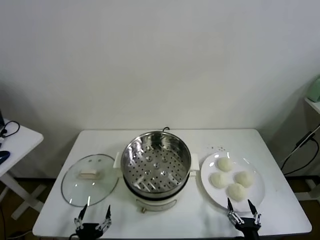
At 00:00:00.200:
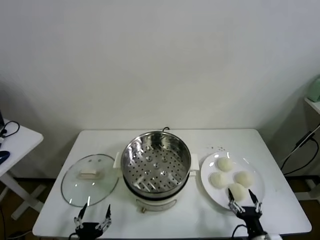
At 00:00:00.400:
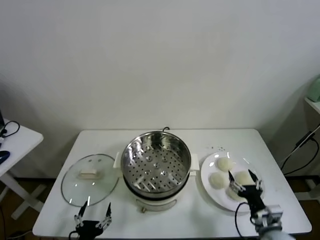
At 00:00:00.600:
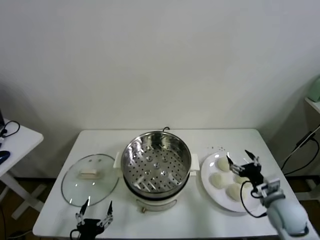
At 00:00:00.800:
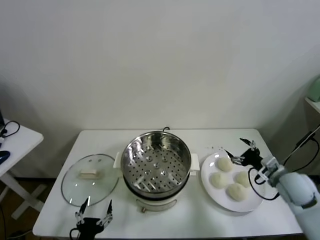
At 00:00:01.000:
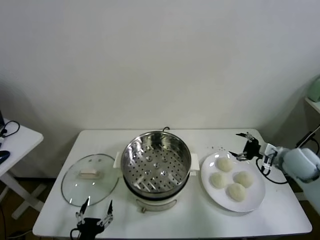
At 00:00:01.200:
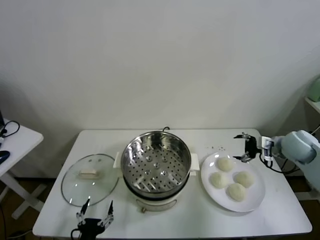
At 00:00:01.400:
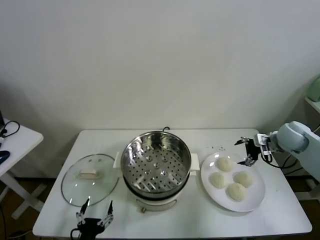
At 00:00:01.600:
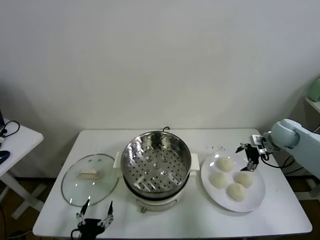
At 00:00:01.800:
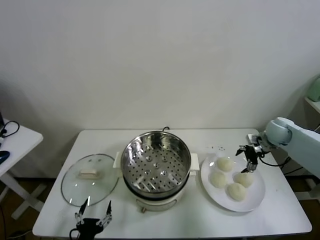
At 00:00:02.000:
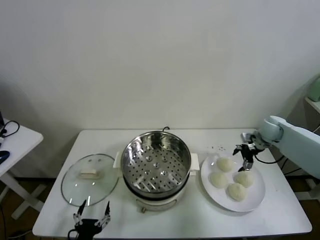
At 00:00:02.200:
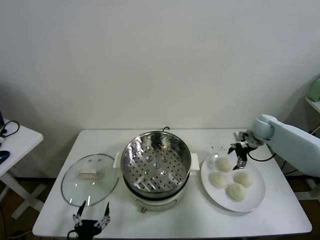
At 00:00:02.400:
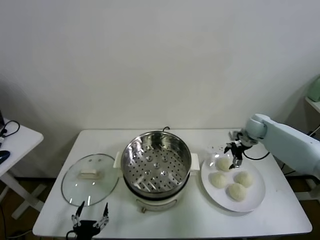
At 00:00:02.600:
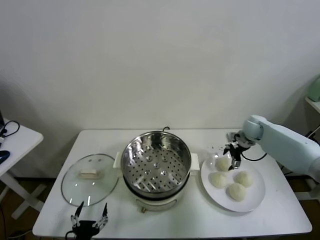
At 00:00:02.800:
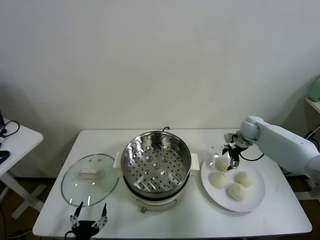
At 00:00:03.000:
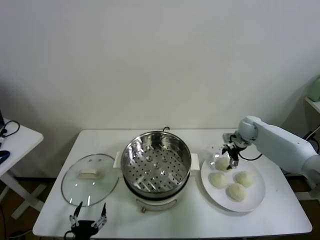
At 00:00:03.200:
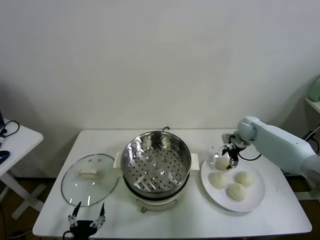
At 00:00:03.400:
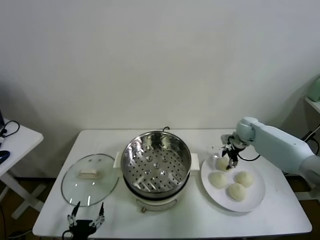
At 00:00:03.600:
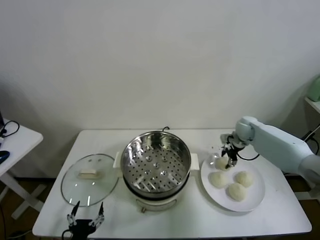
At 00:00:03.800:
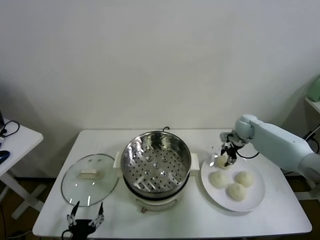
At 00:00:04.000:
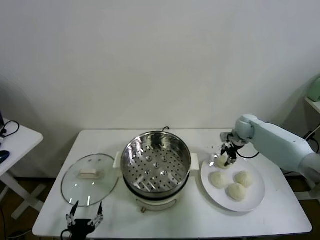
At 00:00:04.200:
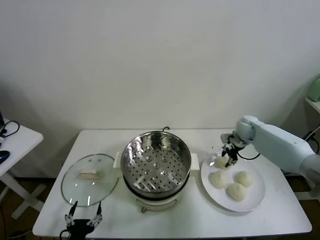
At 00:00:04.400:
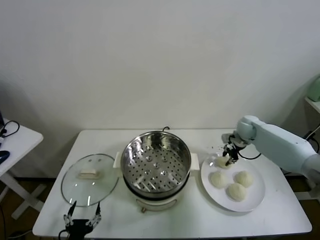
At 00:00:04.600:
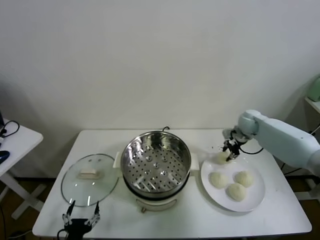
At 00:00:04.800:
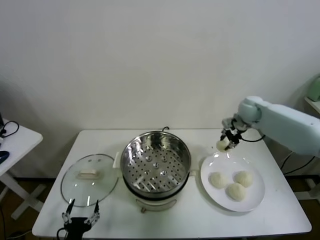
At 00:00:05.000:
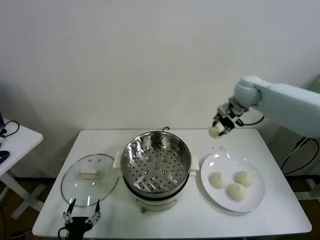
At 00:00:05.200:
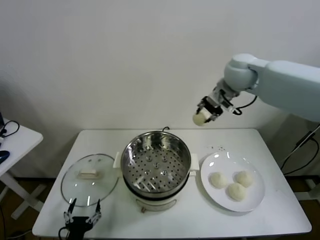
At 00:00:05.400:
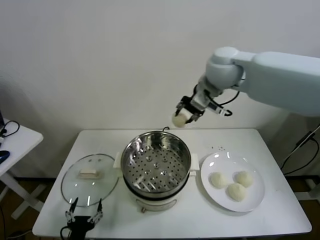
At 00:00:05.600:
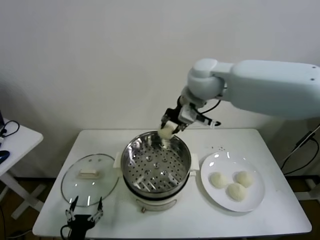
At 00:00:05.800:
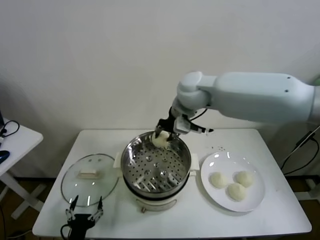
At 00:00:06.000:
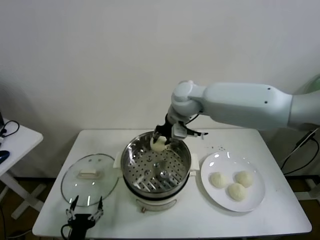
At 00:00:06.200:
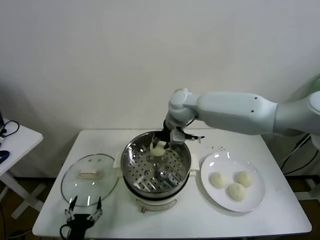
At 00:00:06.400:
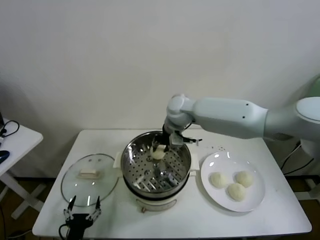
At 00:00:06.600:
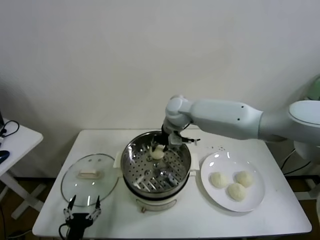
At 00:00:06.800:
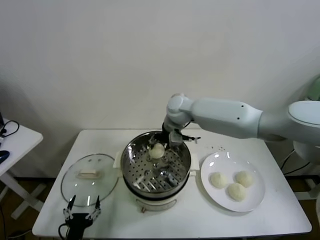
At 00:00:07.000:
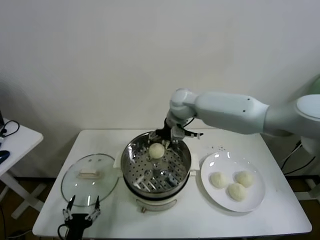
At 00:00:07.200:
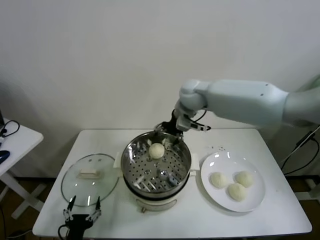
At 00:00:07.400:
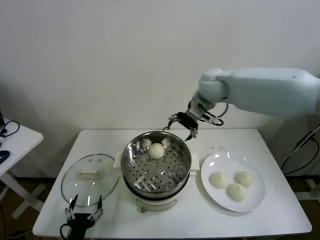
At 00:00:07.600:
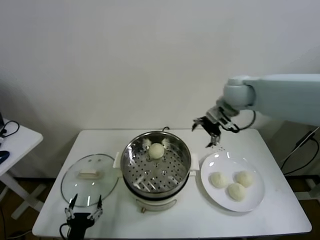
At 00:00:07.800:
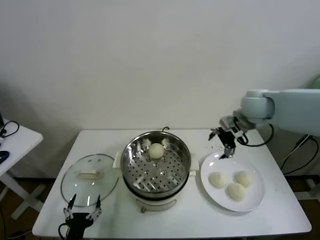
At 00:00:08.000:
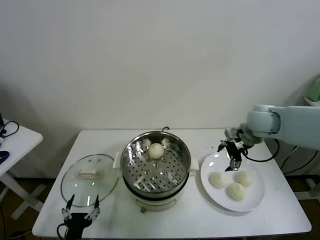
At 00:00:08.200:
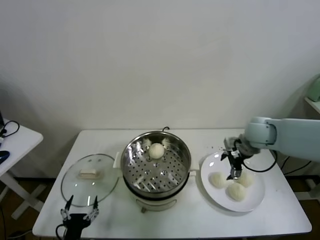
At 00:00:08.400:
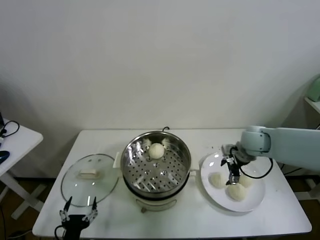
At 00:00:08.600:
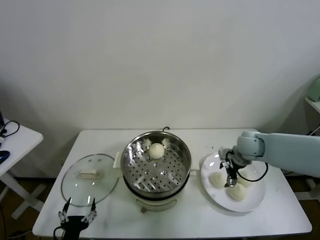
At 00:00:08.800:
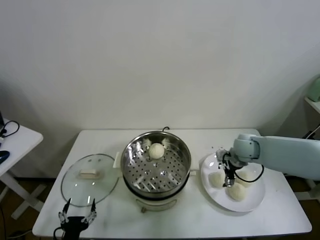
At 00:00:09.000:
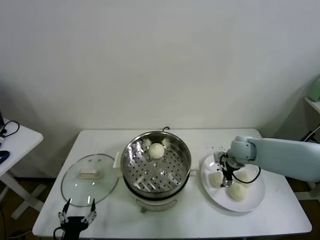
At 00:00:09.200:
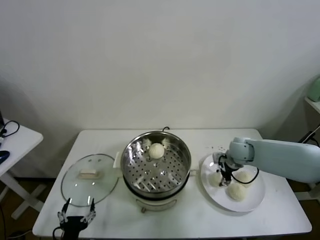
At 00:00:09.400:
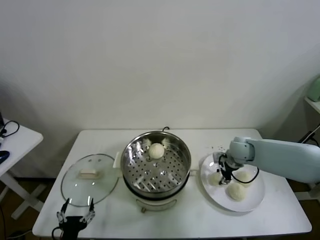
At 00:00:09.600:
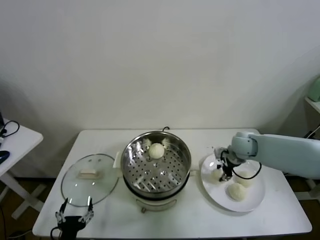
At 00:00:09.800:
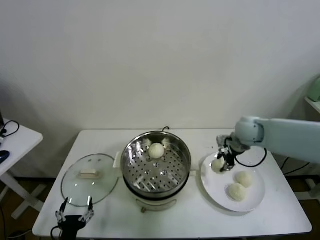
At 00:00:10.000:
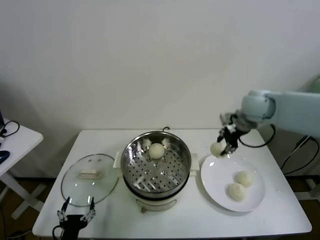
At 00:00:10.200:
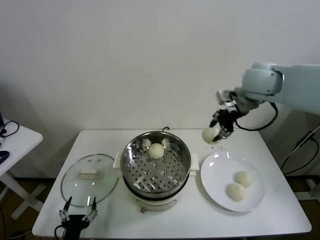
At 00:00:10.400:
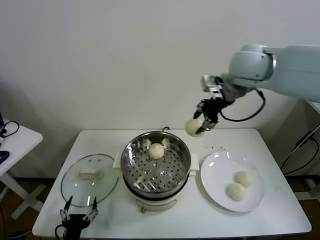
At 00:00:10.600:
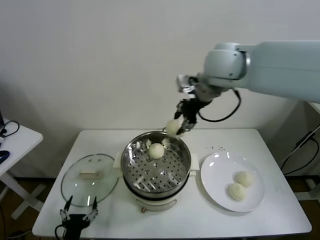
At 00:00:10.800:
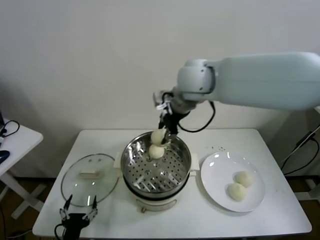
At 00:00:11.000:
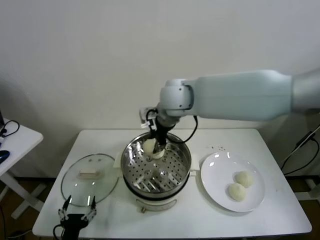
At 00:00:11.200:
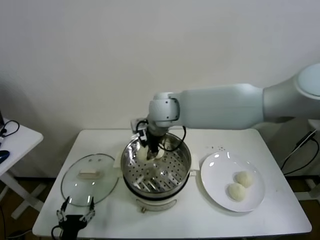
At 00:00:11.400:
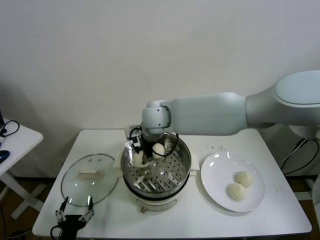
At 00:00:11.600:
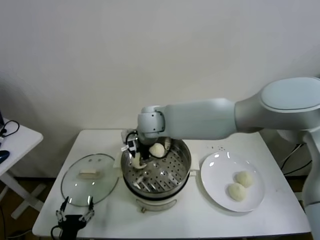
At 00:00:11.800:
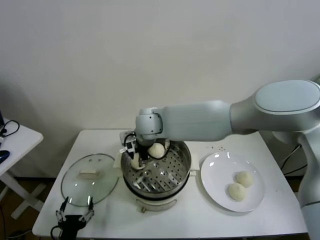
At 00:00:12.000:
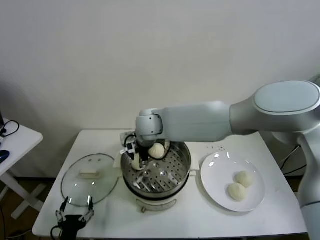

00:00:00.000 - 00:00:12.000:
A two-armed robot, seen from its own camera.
Task of the whole recording: take steamed baozi put them in steamer.
Step, 00:00:00.000 - 00:00:03.400: Grasp the baozi in the plate with right gripper.
Step, 00:00:03.600 - 00:00:07.000: Place the baozi on the steamer with right gripper.
Step, 00:00:07.200 - 00:00:09.200: Grasp the baozi in the plate with right gripper.
00:00:01.600 - 00:00:03.000: The right gripper is displaced forward, to the left and downward by about 10 cm.
00:00:03.000 - 00:00:04.400: The right gripper closes its fingers.
00:00:04.400 - 00:00:06.000: The right gripper moves to the left and upward, roughly 35 cm.
00:00:06.000 - 00:00:07.600: The right gripper shifts approximately 15 cm to the right, and opens its fingers.
00:00:07.600 - 00:00:09.000: The right gripper heads downward, covering approximately 20 cm.
00:00:09.000 - 00:00:10.400: The right gripper goes about 30 cm upward, and closes.
00:00:10.400 - 00:00:12.000: The right gripper goes some 30 cm to the left and downward.

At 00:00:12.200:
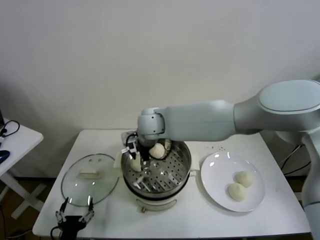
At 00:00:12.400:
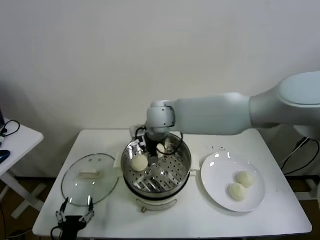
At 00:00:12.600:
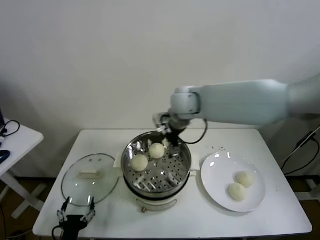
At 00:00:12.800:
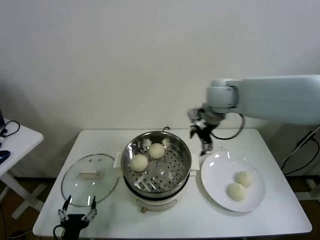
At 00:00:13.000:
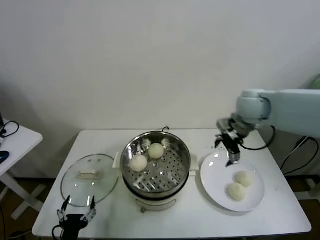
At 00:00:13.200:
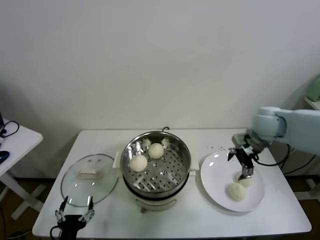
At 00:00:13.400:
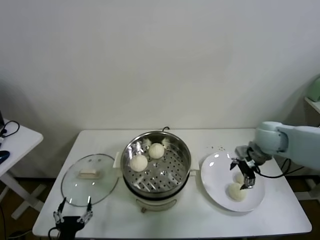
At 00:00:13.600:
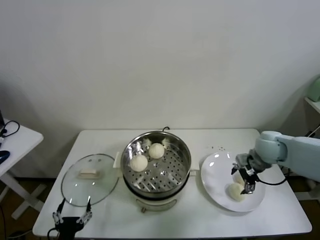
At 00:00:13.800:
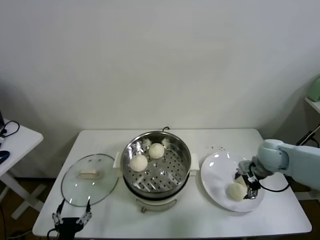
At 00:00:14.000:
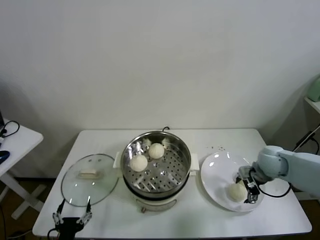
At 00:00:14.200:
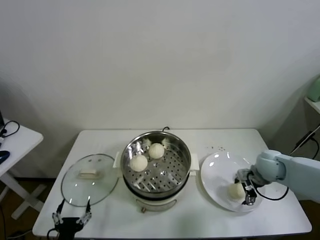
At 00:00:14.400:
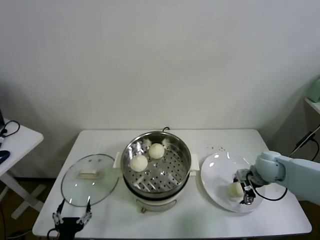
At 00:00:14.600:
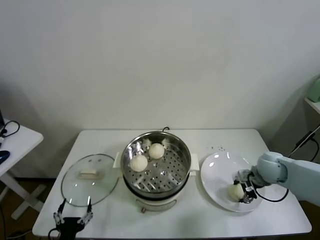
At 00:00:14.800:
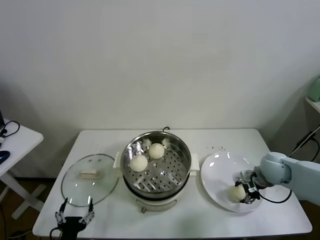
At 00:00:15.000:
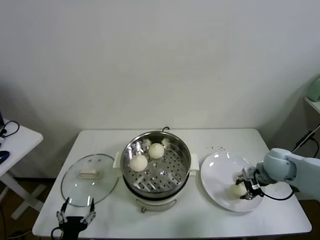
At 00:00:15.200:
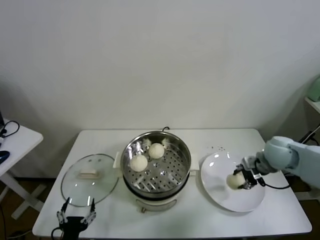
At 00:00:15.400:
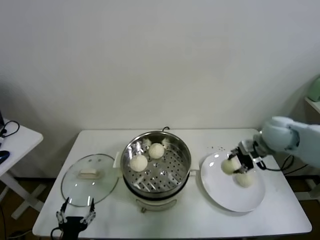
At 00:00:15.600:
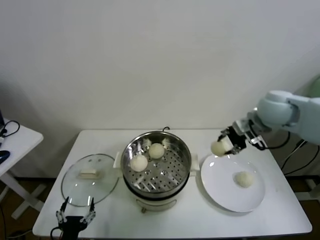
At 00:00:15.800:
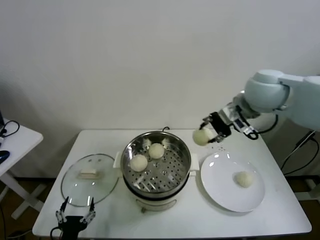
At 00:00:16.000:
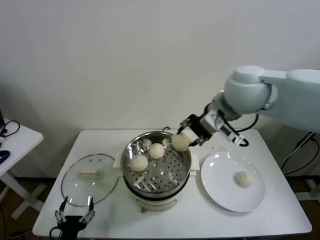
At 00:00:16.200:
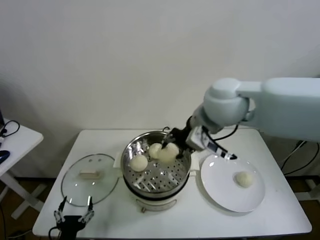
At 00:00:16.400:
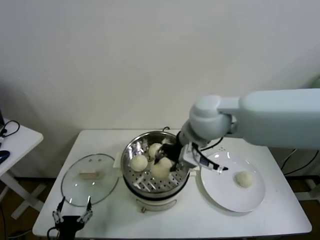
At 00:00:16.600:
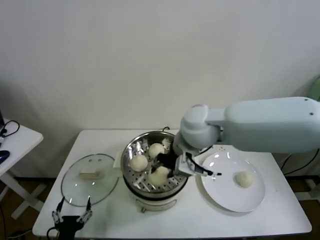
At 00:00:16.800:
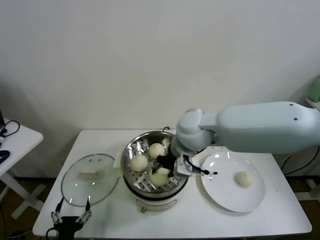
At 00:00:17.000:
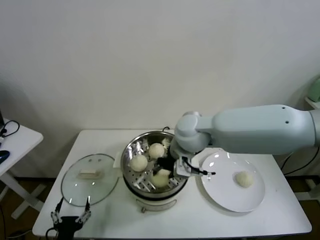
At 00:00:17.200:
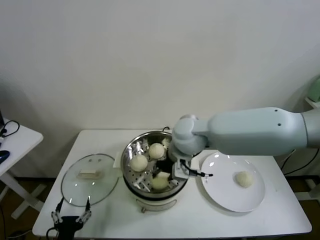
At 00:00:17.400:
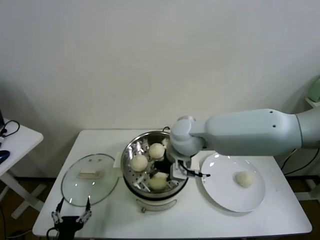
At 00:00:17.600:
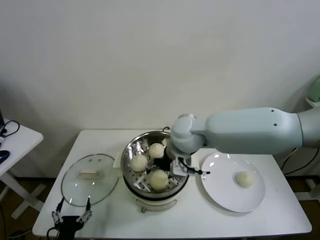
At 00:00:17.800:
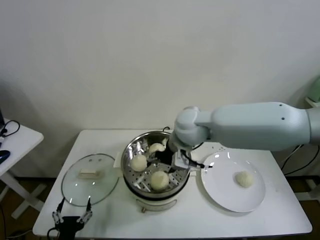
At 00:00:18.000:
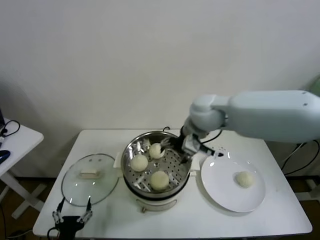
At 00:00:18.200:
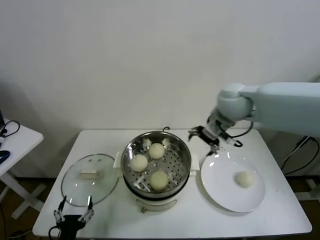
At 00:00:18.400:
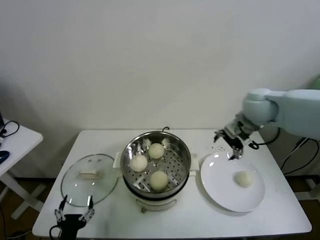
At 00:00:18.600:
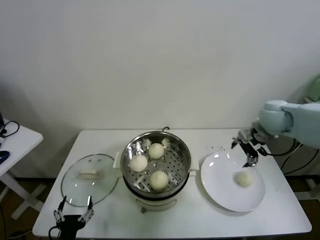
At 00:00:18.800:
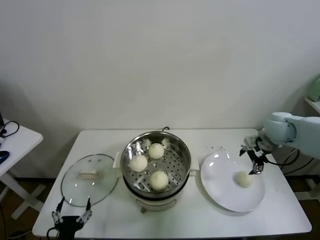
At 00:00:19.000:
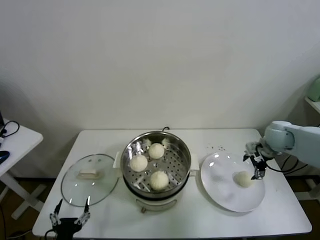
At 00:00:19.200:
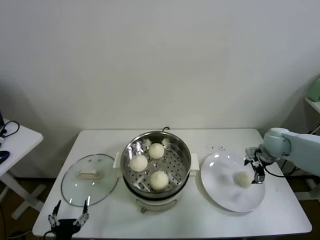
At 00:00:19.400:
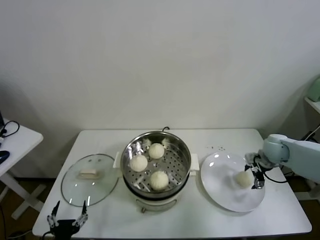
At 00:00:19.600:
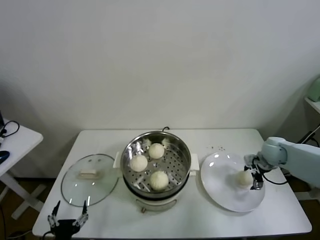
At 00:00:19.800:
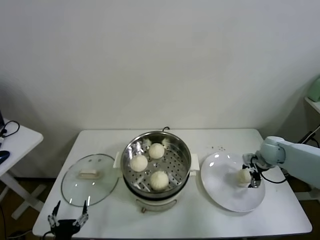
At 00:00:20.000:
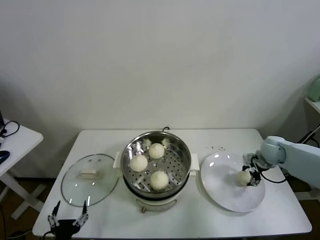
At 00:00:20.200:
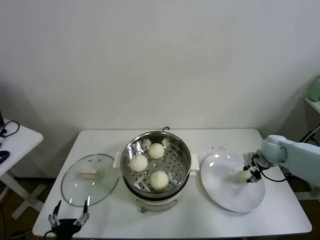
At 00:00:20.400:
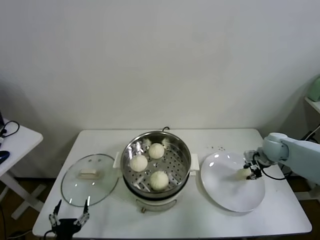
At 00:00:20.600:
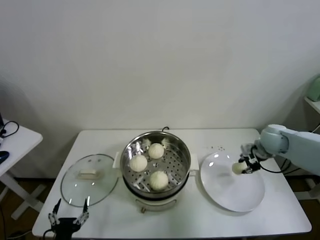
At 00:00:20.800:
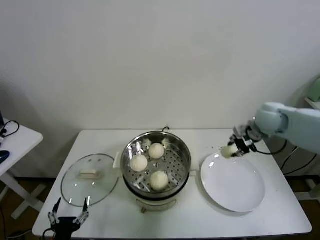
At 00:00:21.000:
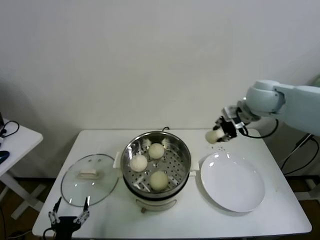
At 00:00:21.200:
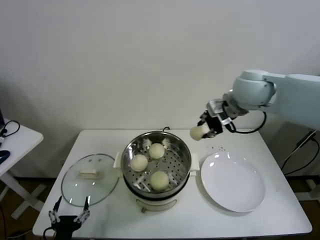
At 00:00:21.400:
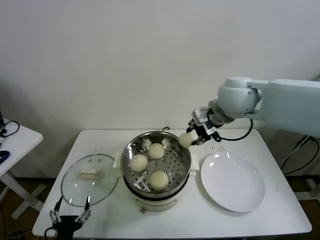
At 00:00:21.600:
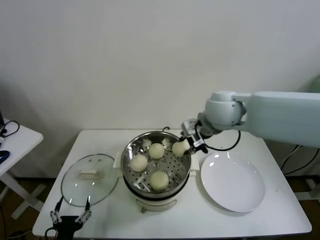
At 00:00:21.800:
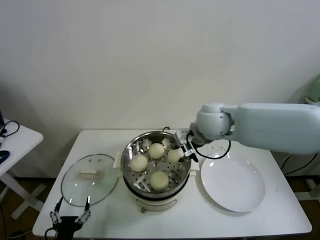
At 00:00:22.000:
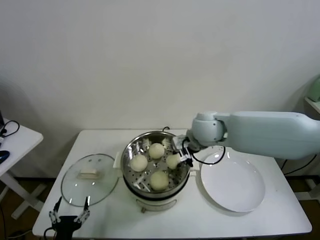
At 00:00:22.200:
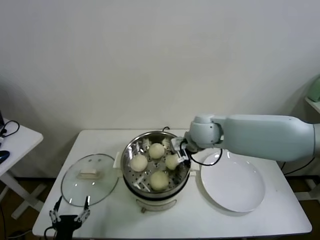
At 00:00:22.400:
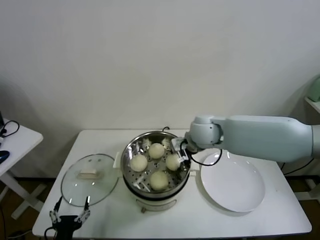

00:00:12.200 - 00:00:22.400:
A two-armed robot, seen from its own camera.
Task of the whole recording: take steamed baozi put them in steamer.
Step, 00:00:12.400 - 00:00:14.600: Grasp the baozi in the plate with right gripper.
Step, 00:00:14.800 - 00:00:17.600: Place the baozi on the steamer with right gripper.
Step, 00:00:17.800 - 00:00:20.000: Grasp the baozi in the plate with right gripper.
00:00:12.200 - 00:00:13.600: The right gripper goes roughly 40 cm to the right.
00:00:13.600 - 00:00:15.200: The right gripper travels downward and back again, some 10 cm each way, and closes its fingers.
00:00:15.200 - 00:00:16.600: The right gripper goes some 30 cm to the left and upward.
00:00:16.600 - 00:00:18.000: The right gripper is displaced forward by roughly 5 cm, and opens its fingers.
00:00:18.000 - 00:00:19.400: The right gripper is displaced to the right and downward by about 35 cm.
00:00:19.400 - 00:00:21.000: The right gripper moves upward and to the left, about 20 cm, and closes up.
00:00:21.000 - 00:00:22.400: The right gripper is displaced to the left and downward by roughly 20 cm, and opens up.
